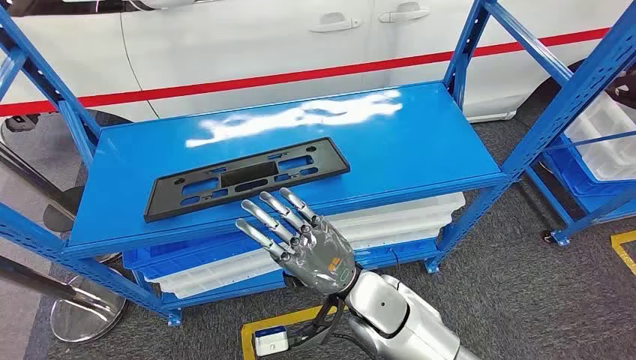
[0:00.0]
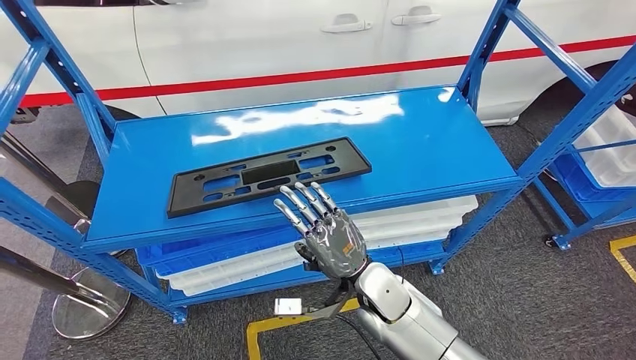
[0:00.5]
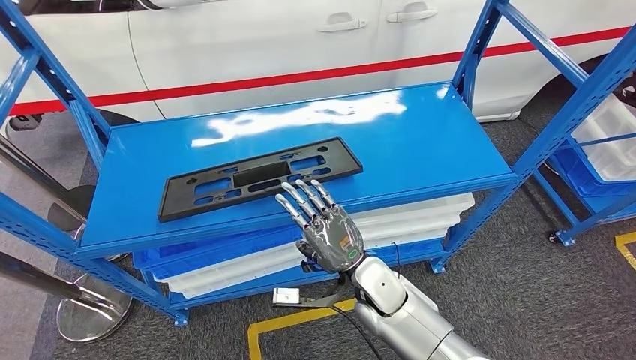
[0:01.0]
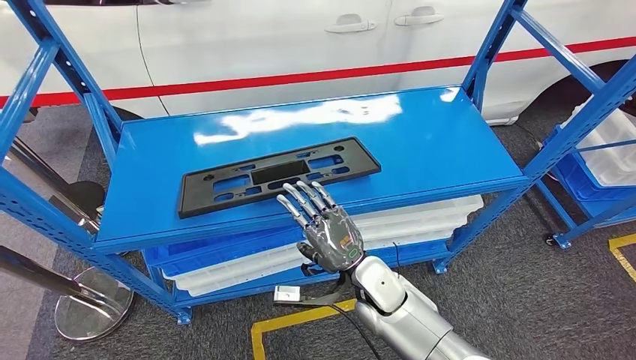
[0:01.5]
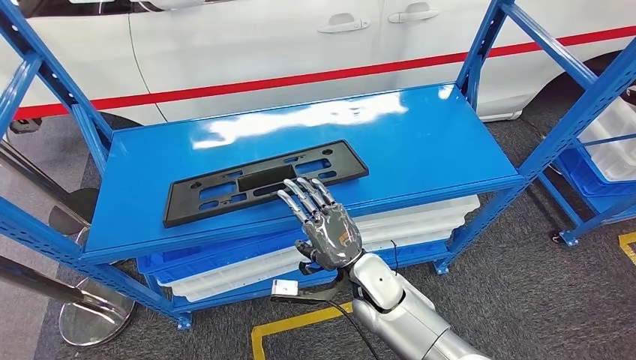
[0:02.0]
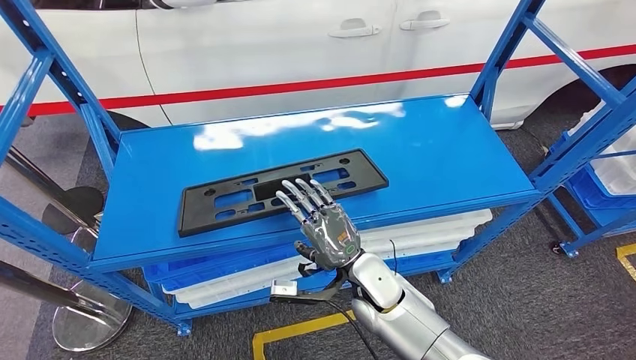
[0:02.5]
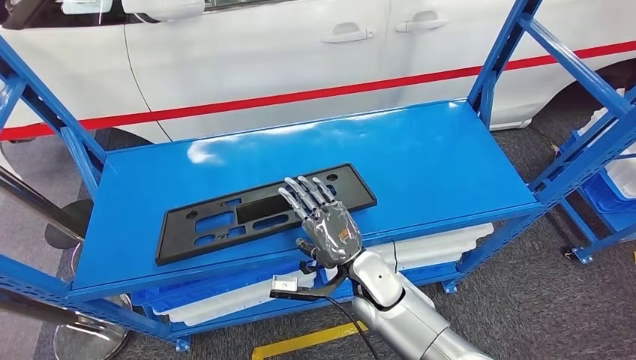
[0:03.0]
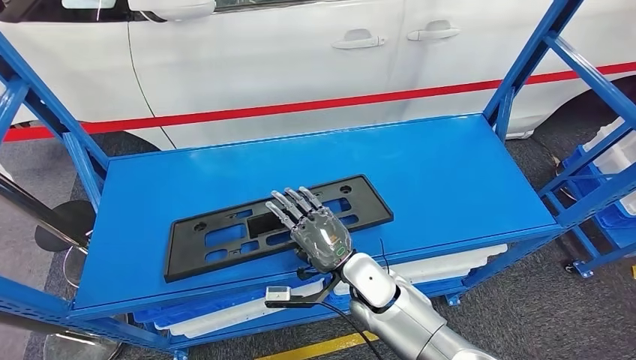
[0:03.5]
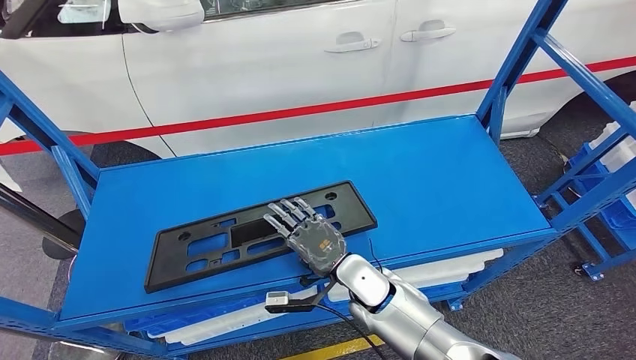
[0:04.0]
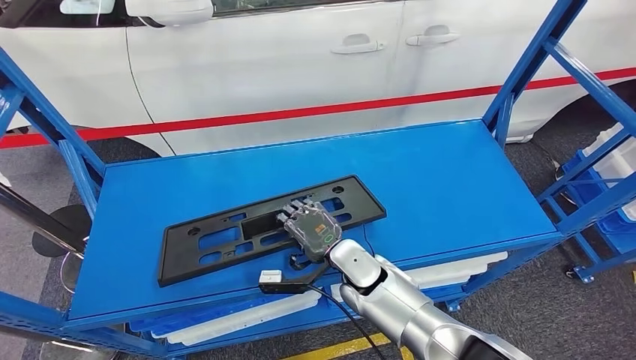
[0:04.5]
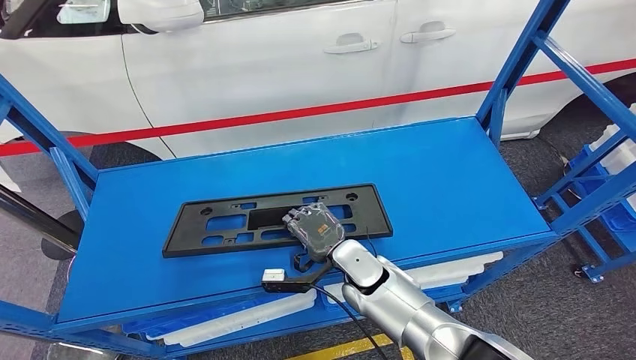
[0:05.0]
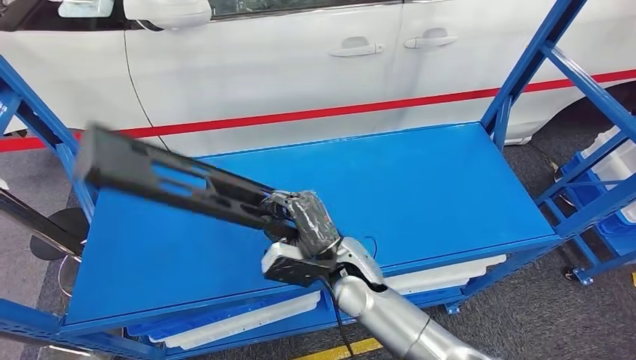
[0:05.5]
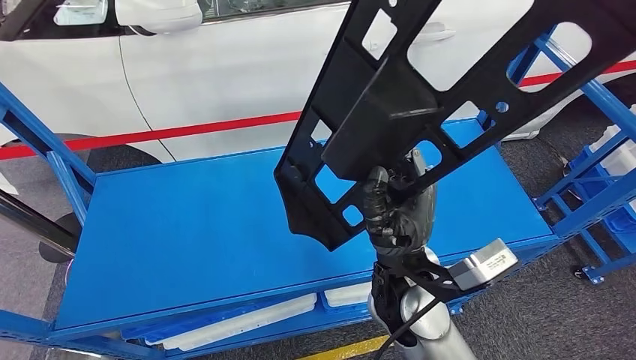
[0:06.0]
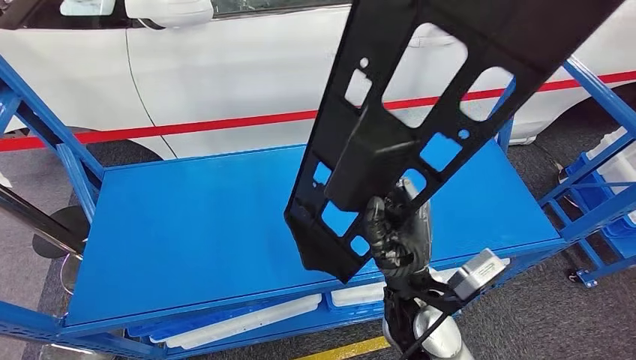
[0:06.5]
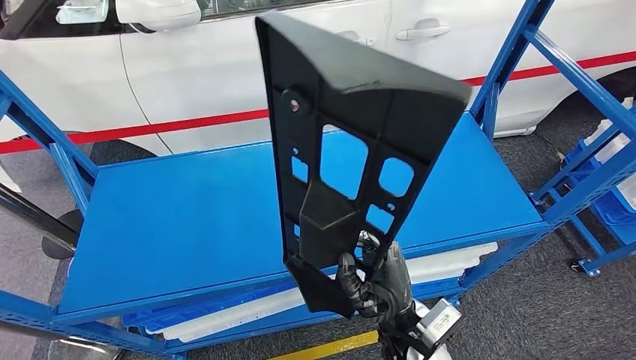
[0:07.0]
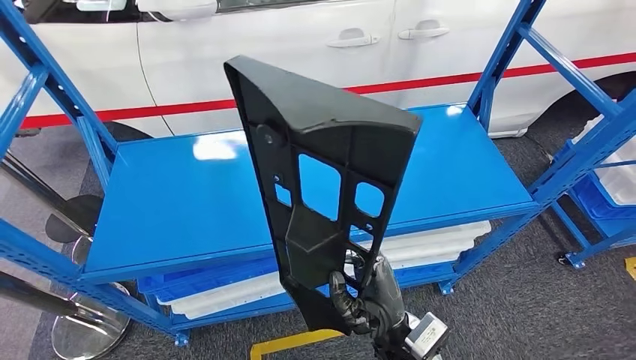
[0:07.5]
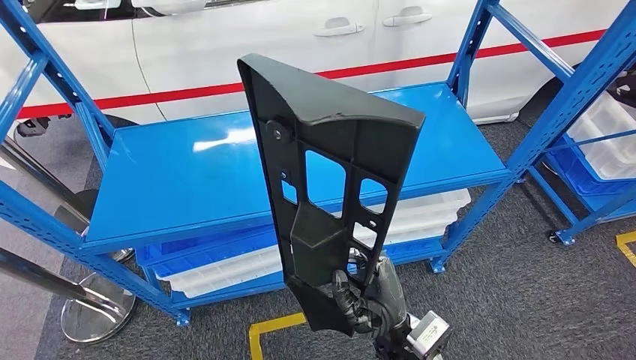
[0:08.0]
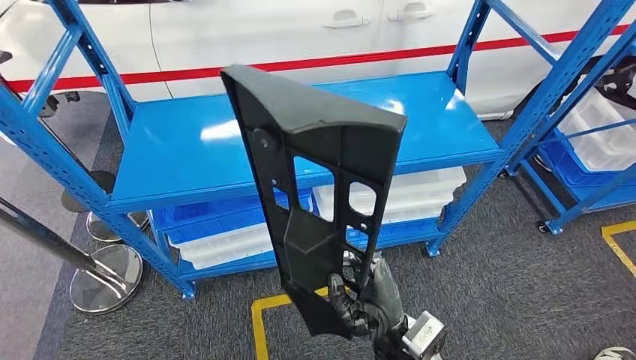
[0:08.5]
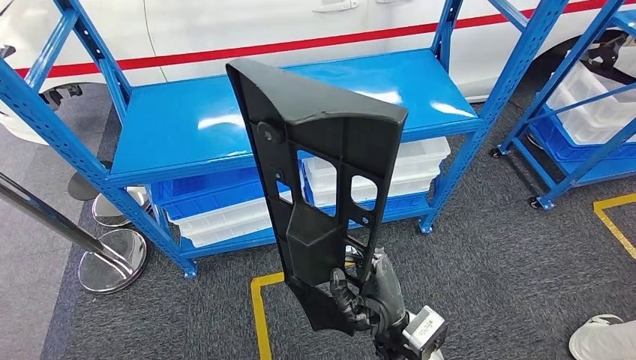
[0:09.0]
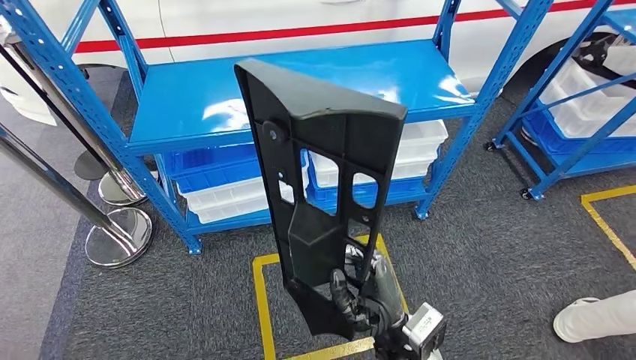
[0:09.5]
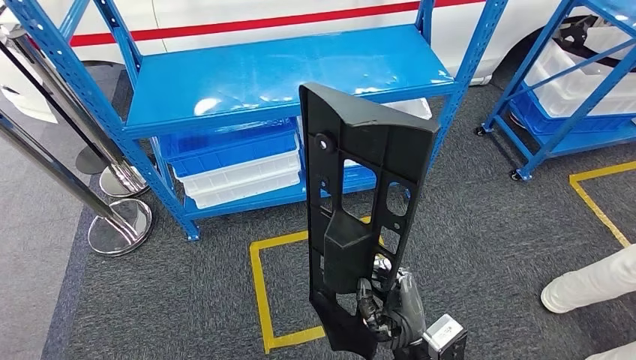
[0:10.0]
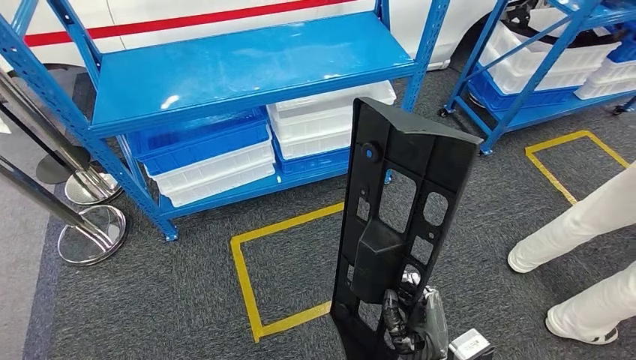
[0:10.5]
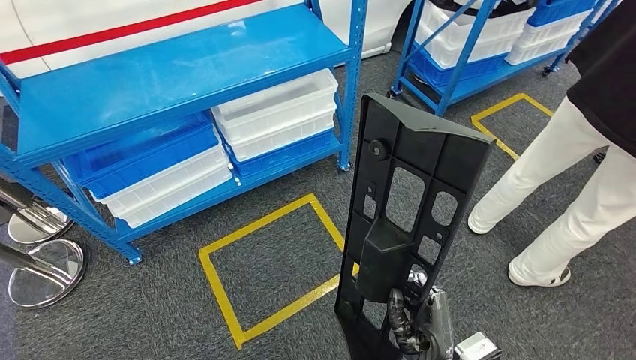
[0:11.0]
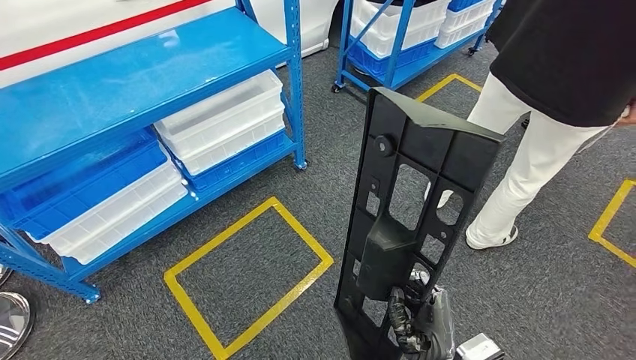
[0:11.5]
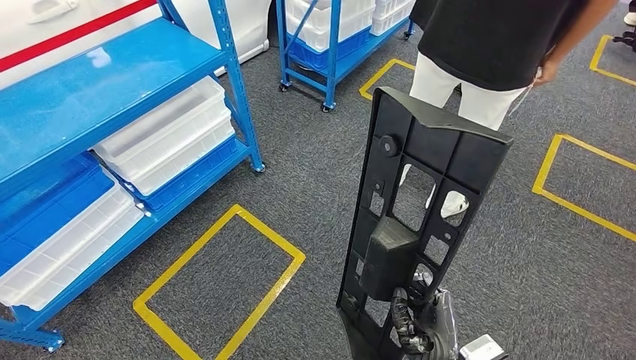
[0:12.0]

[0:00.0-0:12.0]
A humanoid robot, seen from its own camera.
Step, 0:00.0 to 0:06.0: Pick up the large material from the shelf.

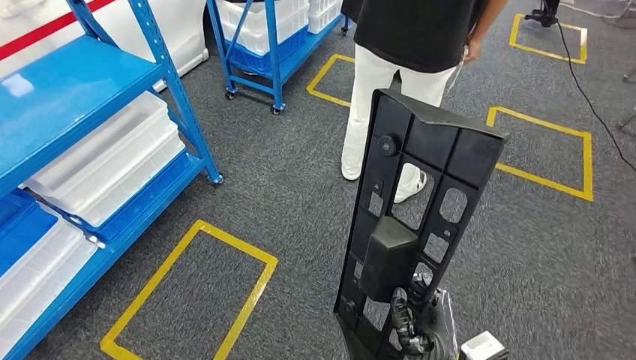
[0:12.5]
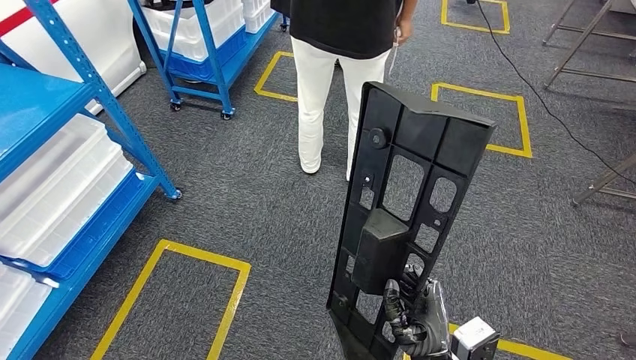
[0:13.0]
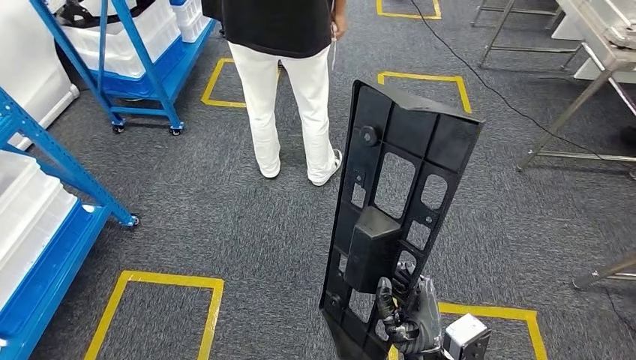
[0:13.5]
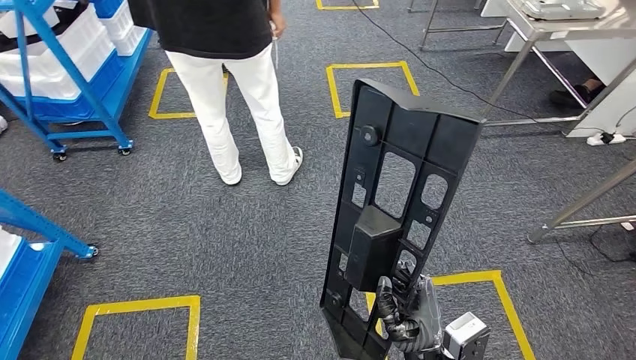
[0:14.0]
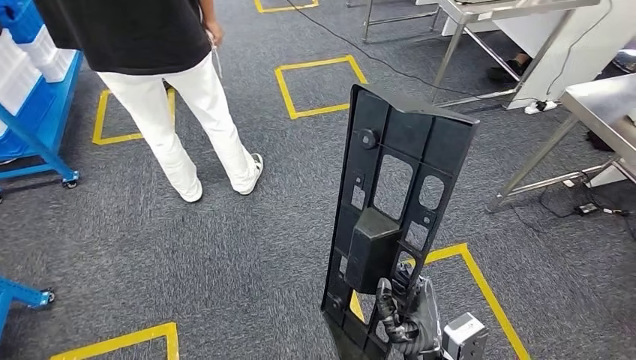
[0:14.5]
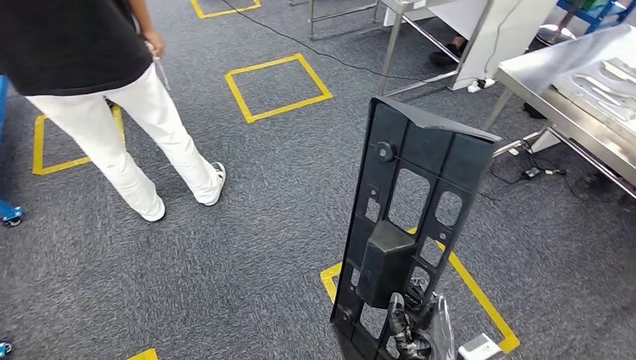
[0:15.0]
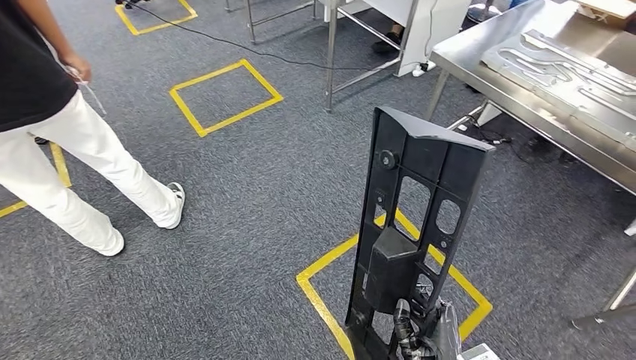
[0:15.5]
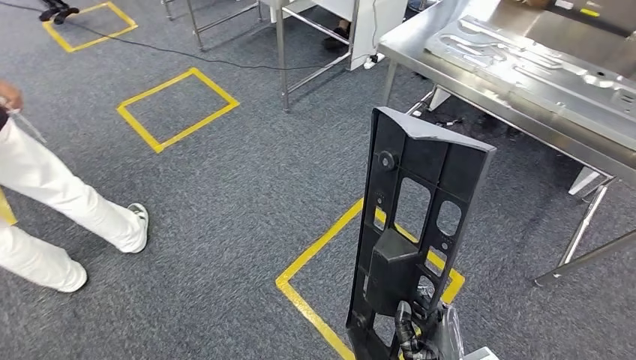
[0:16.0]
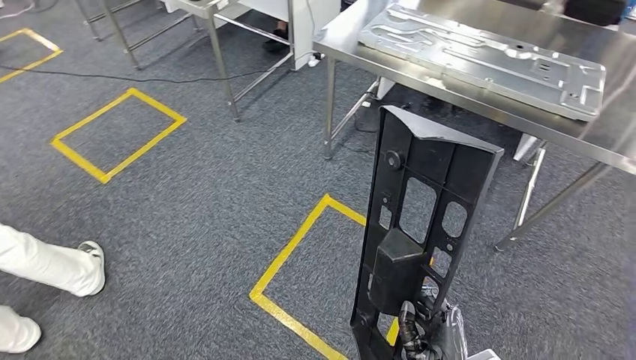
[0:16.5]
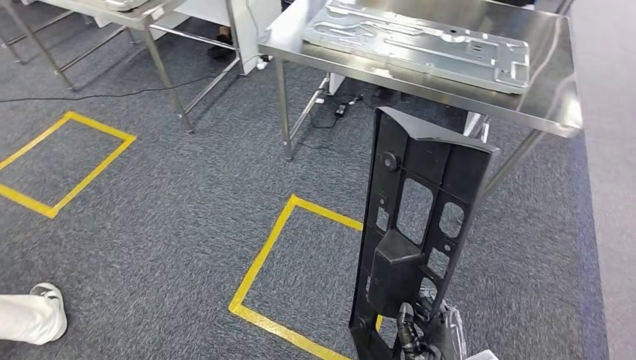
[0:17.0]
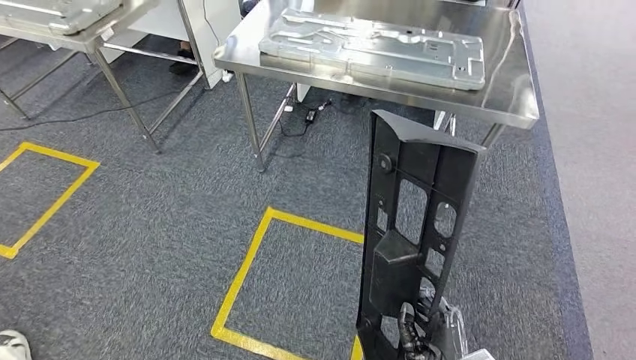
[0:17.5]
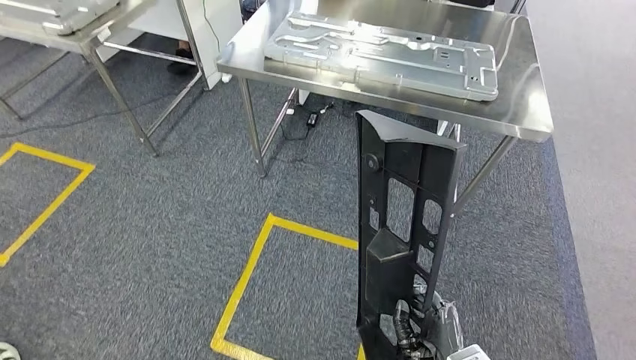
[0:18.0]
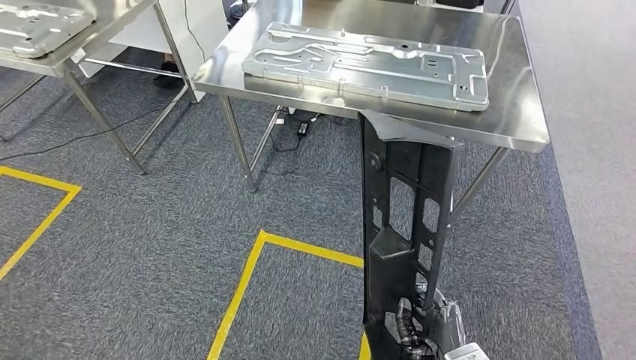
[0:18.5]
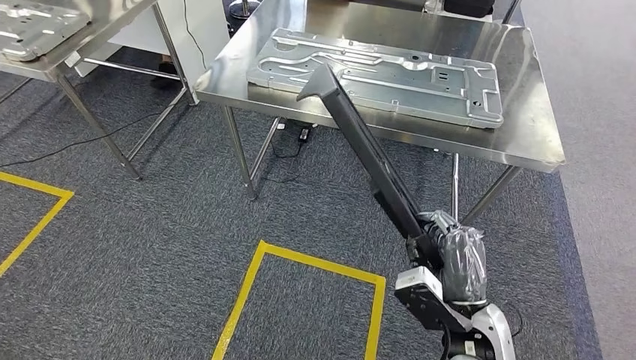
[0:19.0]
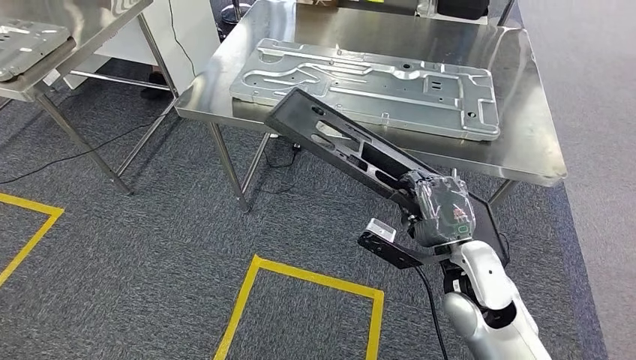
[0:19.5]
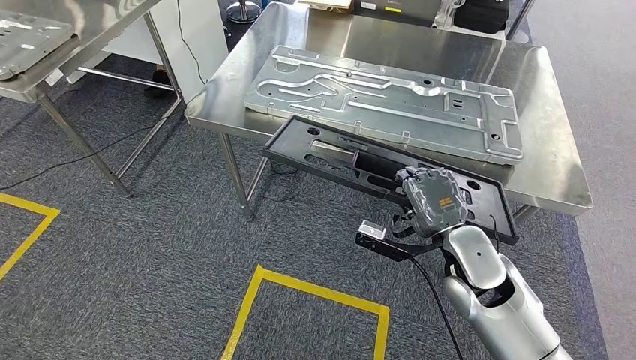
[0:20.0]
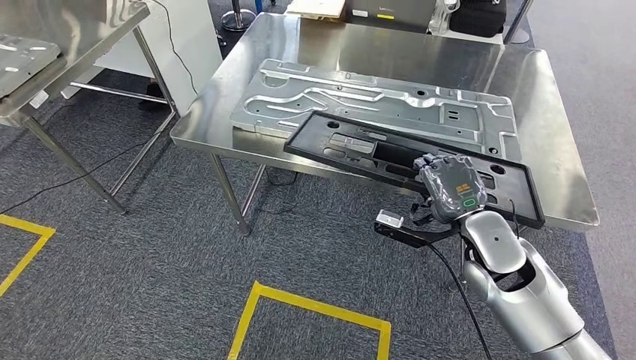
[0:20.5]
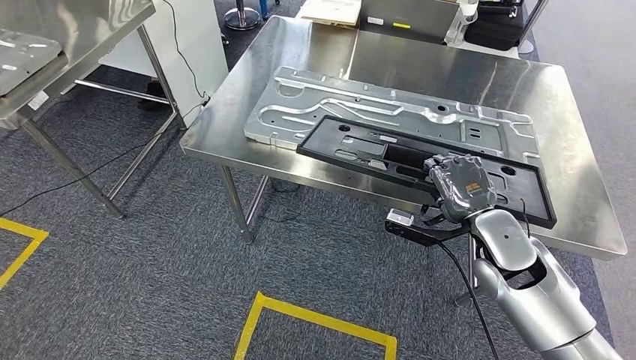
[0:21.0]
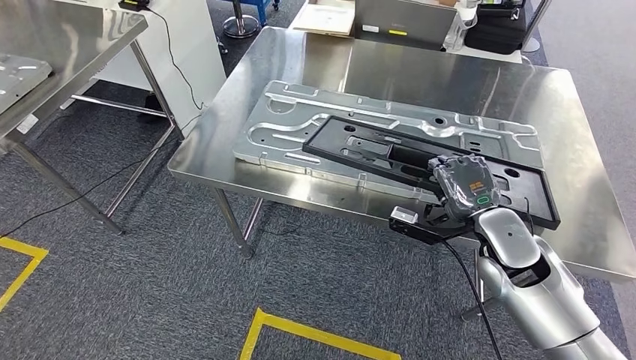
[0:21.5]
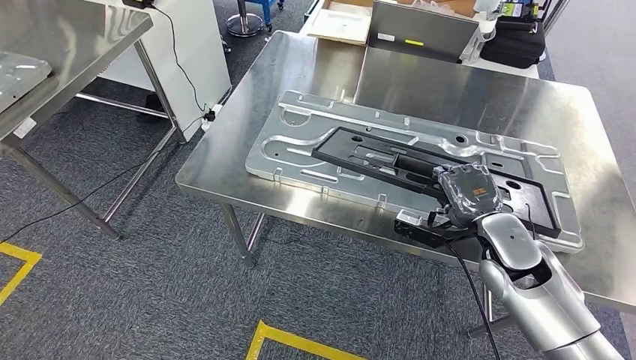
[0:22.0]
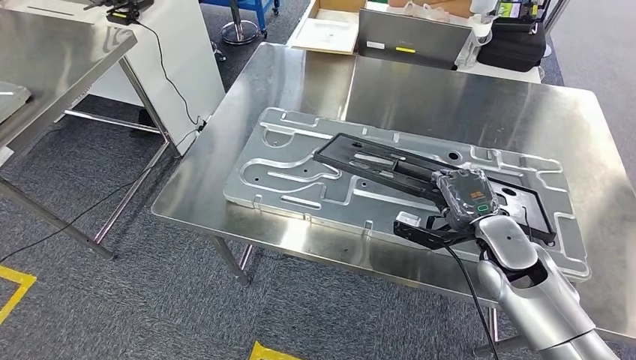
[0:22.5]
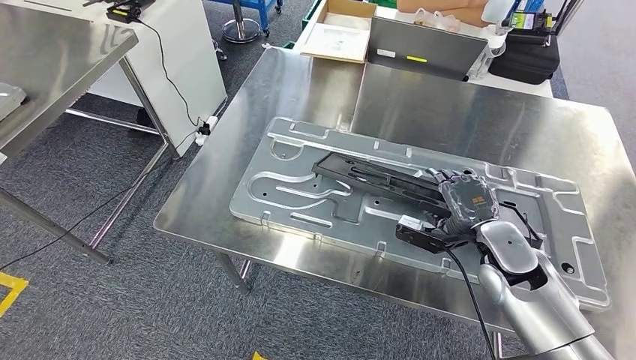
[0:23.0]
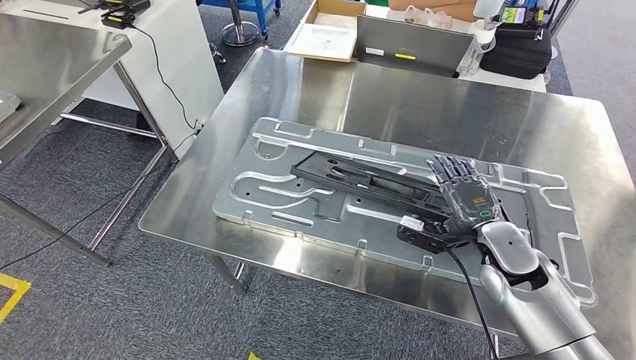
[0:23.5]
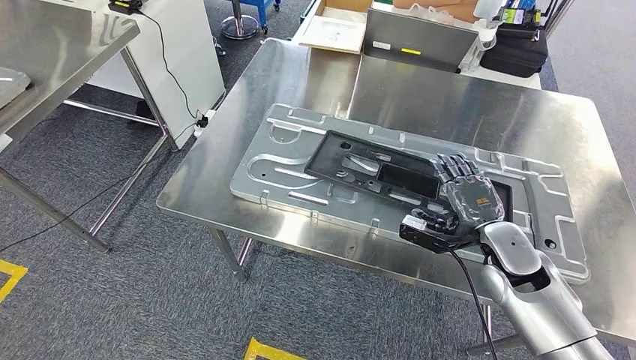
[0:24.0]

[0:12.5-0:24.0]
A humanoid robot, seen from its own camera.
Step, 0:12.5 to 0:19.5: Move the large material to the workbench.
Step, 0:20.0 to 0:23.5: Insert the large material into the corresponding slot on the workbench.
